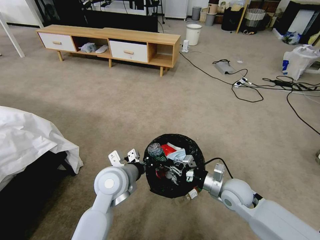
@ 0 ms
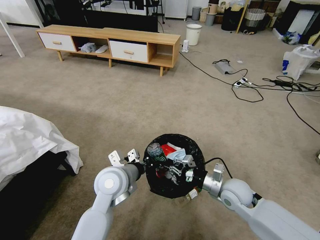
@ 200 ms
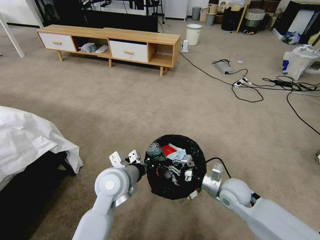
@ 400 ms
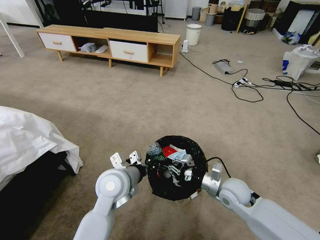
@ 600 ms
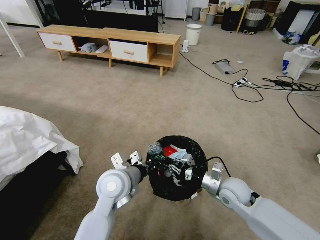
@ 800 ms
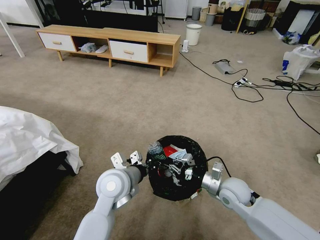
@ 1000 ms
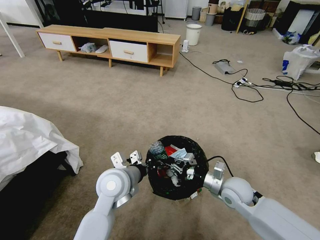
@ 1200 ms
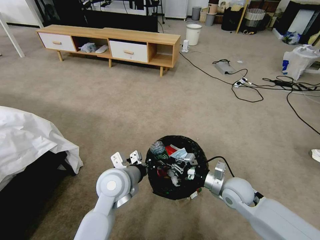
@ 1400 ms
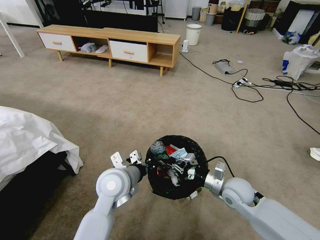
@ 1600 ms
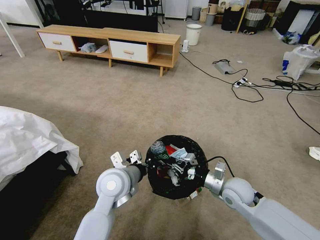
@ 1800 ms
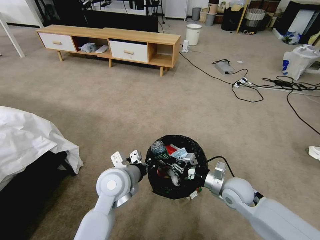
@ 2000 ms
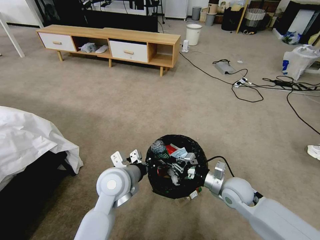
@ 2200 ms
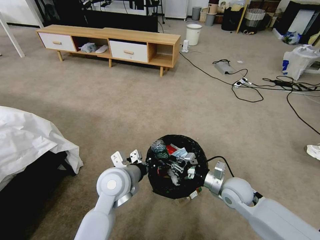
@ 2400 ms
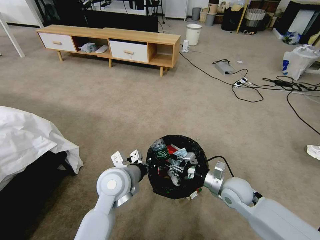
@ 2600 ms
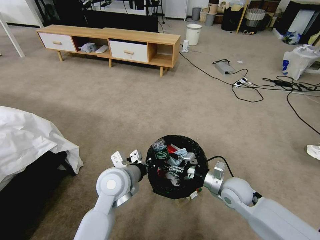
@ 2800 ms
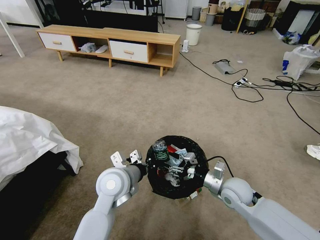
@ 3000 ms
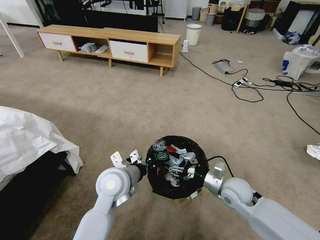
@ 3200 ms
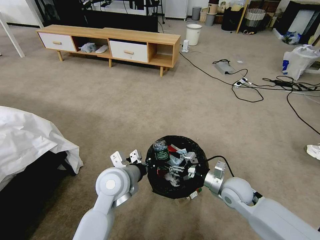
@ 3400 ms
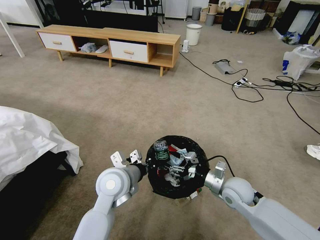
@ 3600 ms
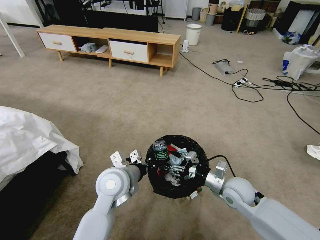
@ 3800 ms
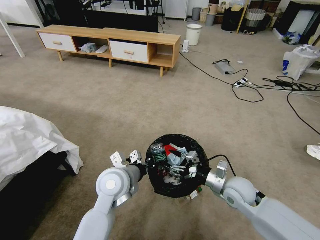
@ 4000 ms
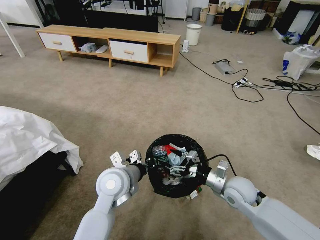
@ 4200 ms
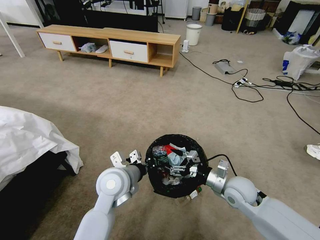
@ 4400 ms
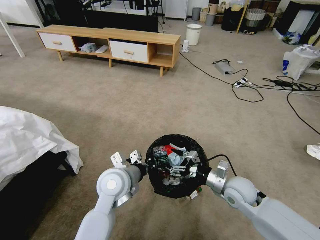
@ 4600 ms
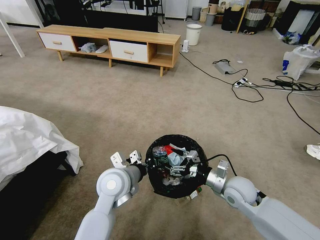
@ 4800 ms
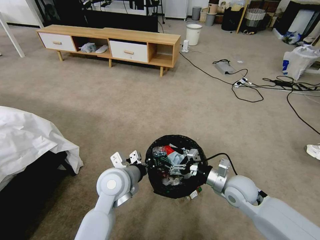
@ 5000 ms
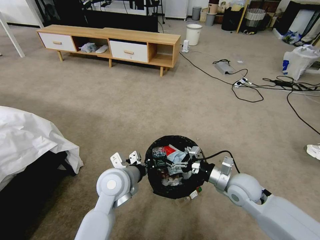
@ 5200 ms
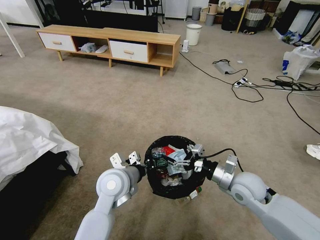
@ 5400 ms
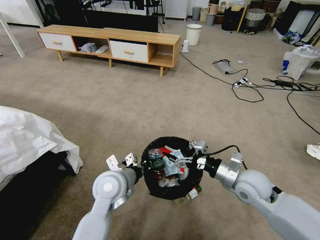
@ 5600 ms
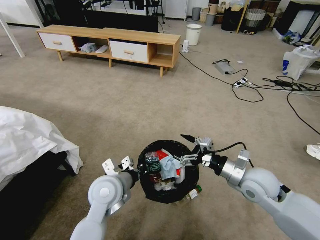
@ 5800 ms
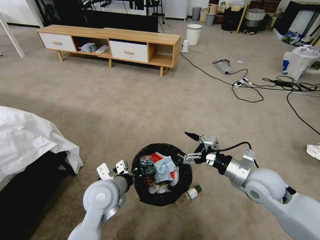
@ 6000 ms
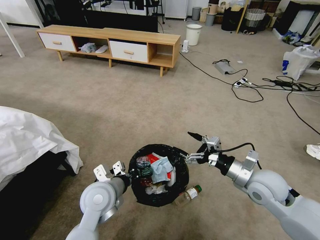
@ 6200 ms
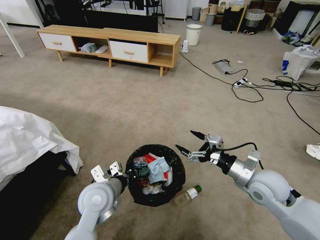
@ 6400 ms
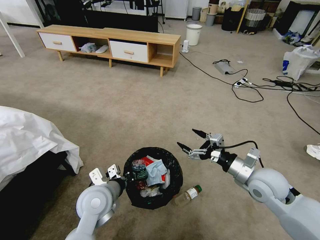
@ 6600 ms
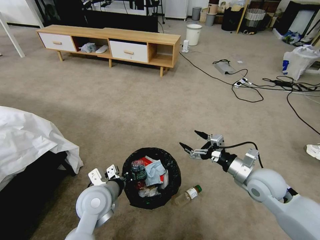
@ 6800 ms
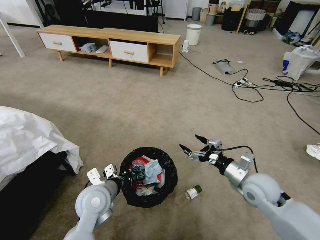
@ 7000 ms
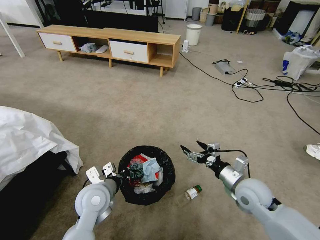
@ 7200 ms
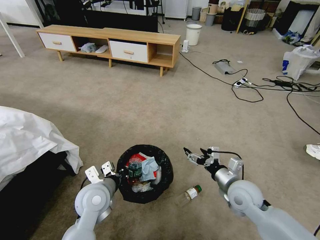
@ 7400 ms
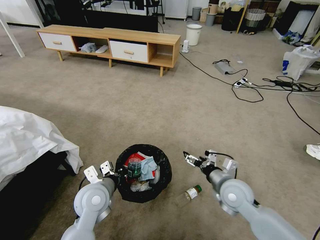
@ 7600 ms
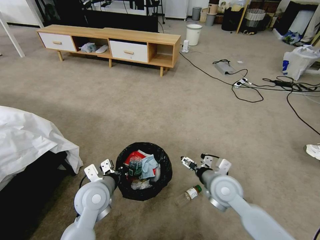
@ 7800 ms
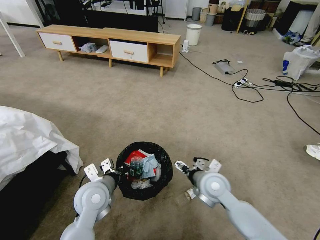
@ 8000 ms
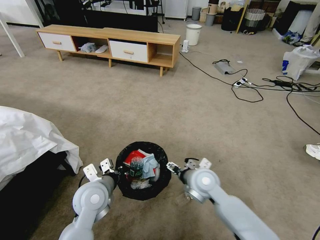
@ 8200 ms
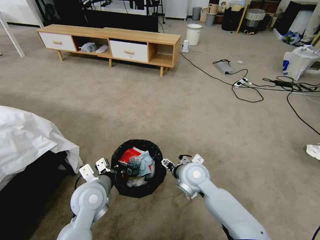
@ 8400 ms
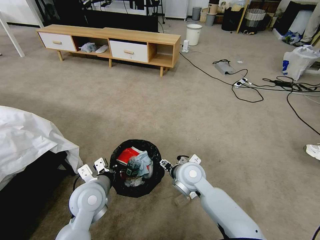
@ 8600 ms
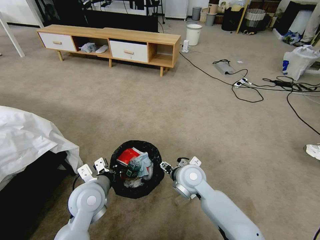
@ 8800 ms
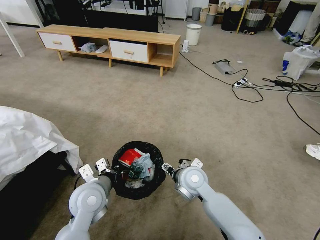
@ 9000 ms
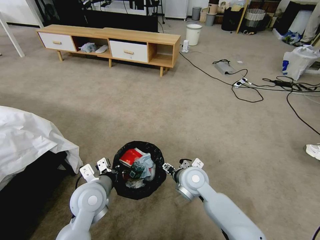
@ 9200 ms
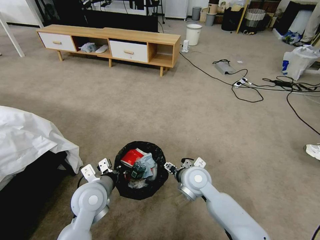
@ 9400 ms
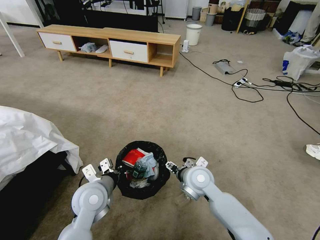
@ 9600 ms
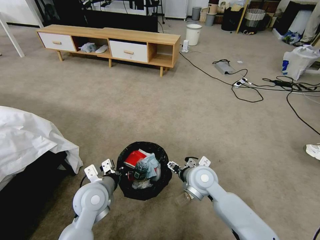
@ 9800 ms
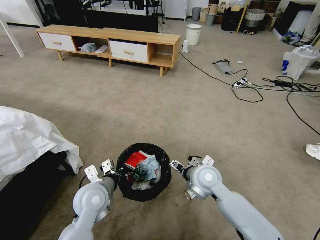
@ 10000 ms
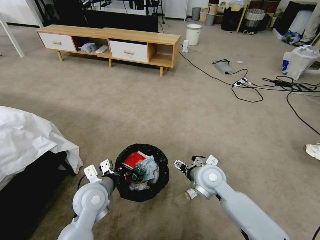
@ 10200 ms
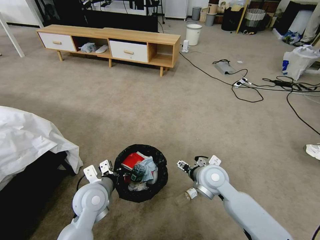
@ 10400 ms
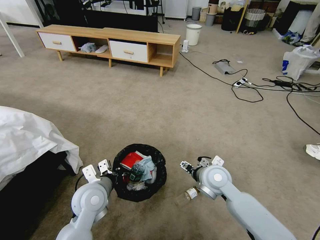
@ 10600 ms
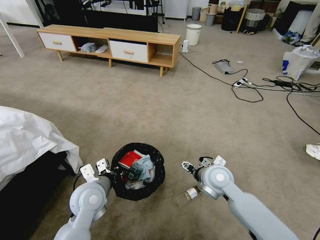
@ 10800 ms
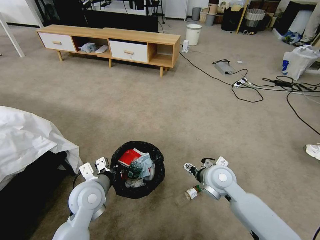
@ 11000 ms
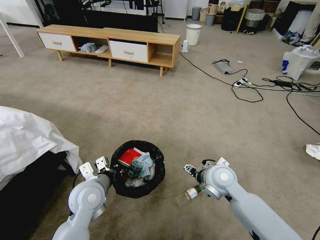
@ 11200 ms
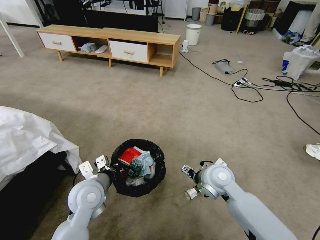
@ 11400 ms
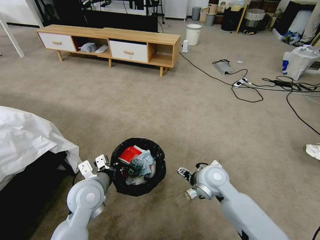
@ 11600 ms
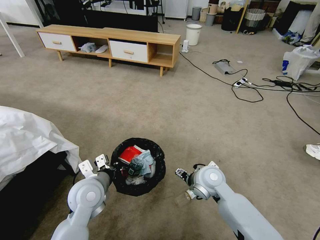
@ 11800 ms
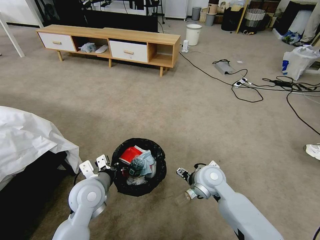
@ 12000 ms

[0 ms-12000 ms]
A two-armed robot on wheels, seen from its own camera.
Task of the whole recording: Pick up the trash bin and place the garbage on the floor into it.
0 ms to 1600 ms: Neither gripper changes place.
1600 ms to 3000 ms: The right gripper opens.
3000 ms to 4400 ms: The grippers move only a little.
4400 ms to 6000 ms: The right gripper moves upward, some 10 cm.
6000 ms to 7600 ms: The right gripper is displaced downward and to the left by some 10 cm.
7600 ms to 9000 ms: The right gripper heads to the left, covering roughly 15 cm.
9000 ms to 10400 ms: The right gripper travels to the right by some 5 cm.
10400 ms to 12000 ms: The grippers move only a little.

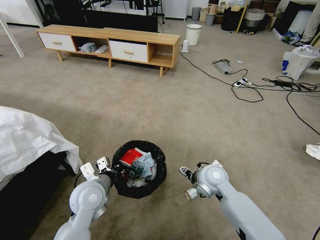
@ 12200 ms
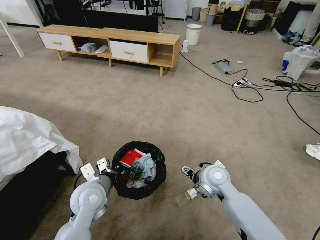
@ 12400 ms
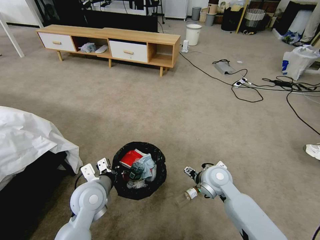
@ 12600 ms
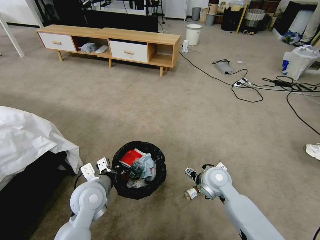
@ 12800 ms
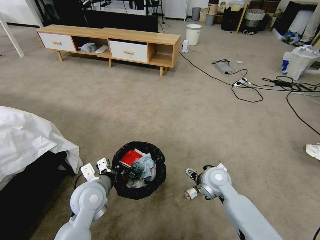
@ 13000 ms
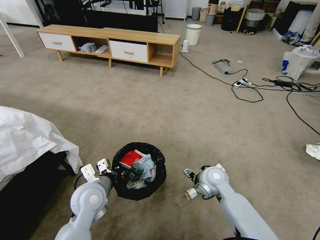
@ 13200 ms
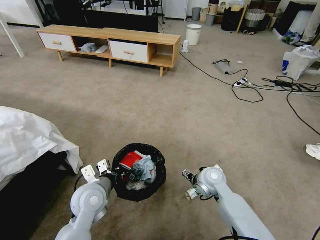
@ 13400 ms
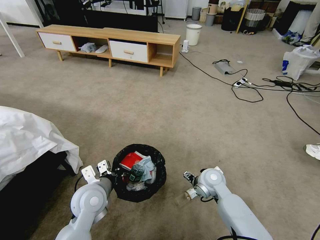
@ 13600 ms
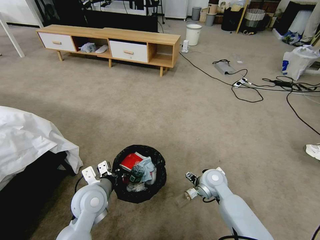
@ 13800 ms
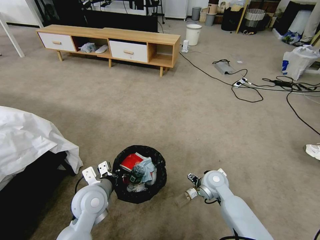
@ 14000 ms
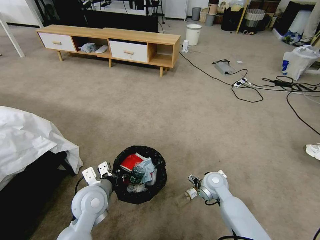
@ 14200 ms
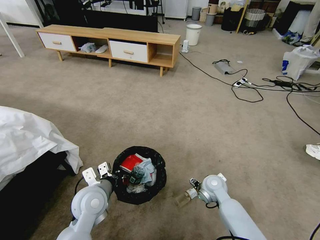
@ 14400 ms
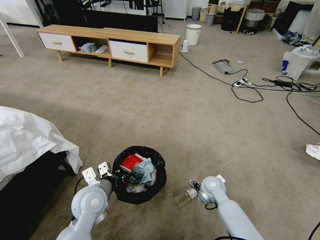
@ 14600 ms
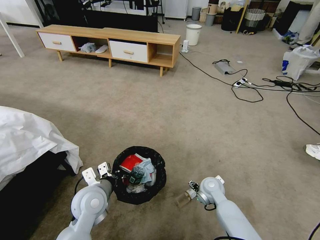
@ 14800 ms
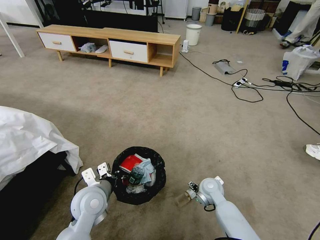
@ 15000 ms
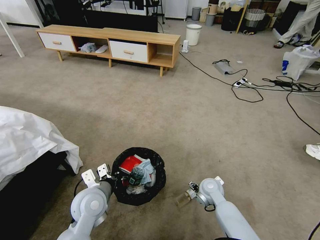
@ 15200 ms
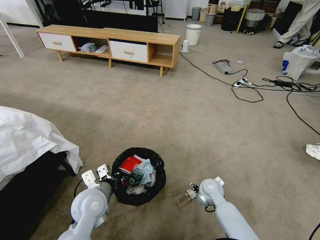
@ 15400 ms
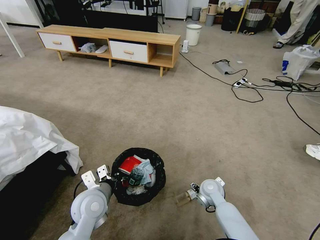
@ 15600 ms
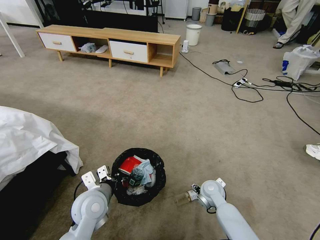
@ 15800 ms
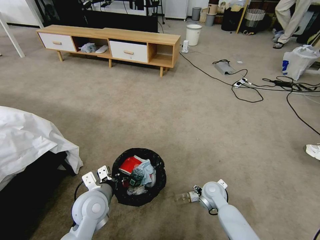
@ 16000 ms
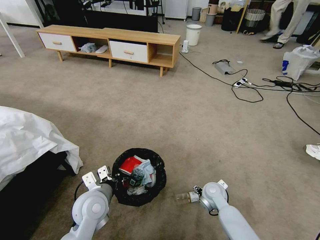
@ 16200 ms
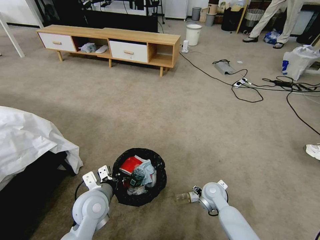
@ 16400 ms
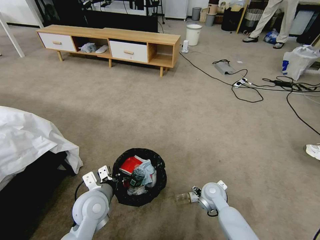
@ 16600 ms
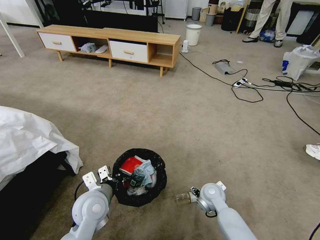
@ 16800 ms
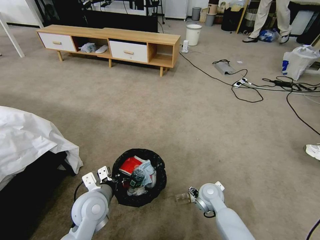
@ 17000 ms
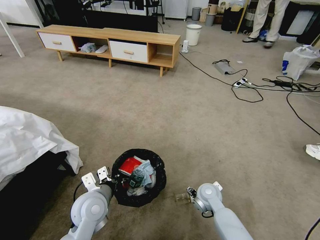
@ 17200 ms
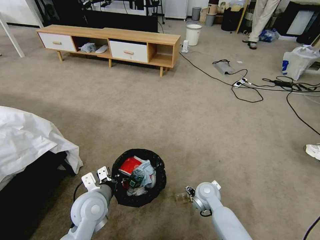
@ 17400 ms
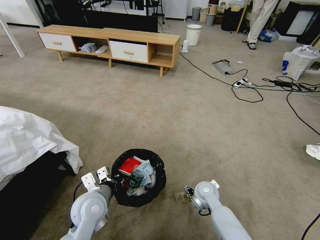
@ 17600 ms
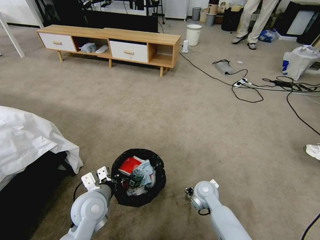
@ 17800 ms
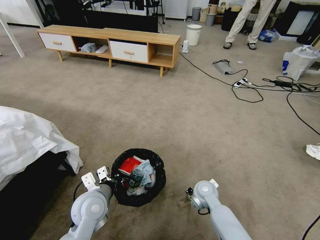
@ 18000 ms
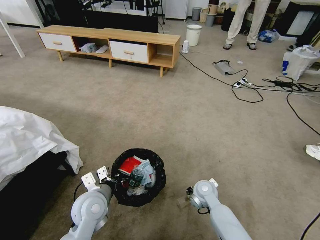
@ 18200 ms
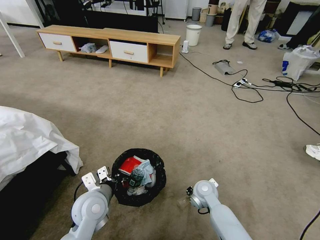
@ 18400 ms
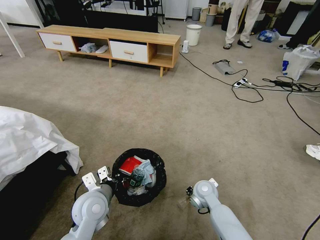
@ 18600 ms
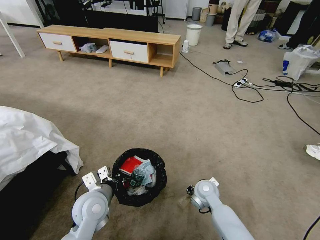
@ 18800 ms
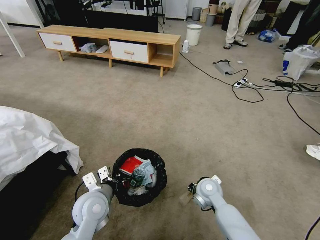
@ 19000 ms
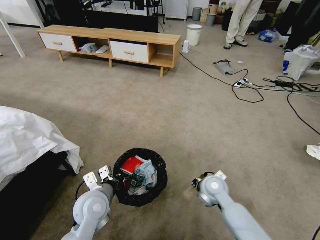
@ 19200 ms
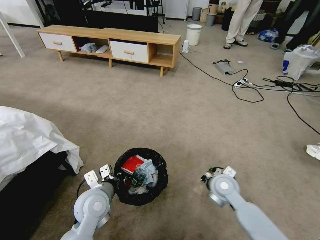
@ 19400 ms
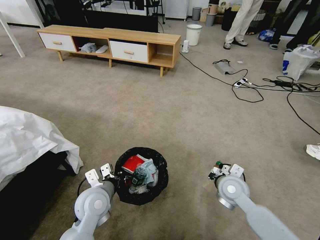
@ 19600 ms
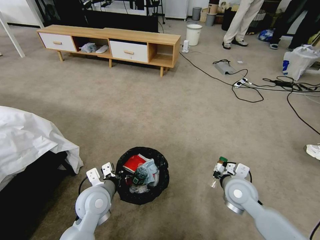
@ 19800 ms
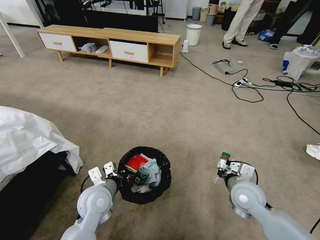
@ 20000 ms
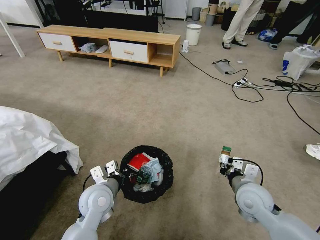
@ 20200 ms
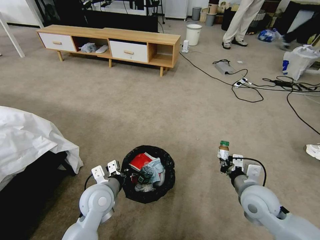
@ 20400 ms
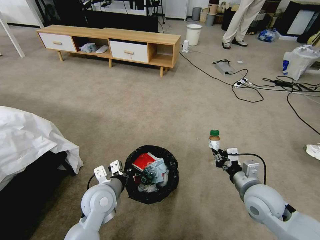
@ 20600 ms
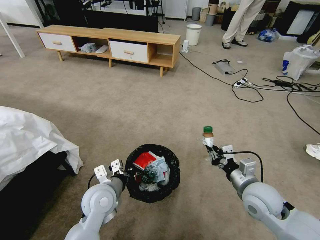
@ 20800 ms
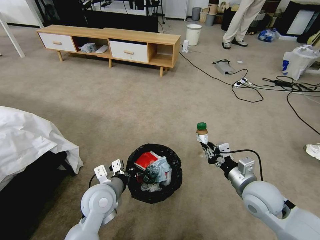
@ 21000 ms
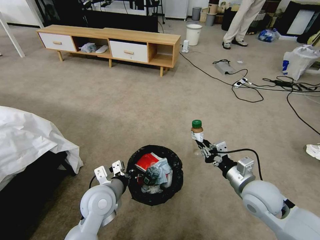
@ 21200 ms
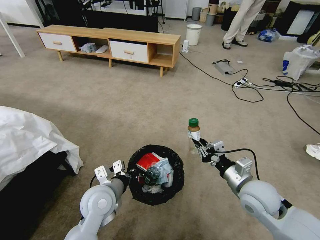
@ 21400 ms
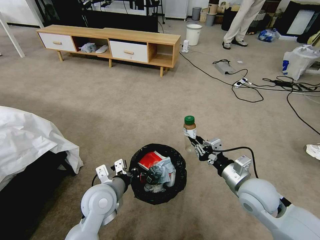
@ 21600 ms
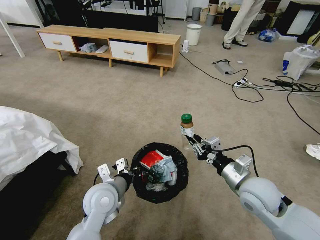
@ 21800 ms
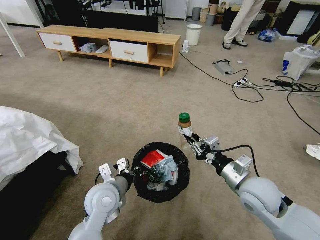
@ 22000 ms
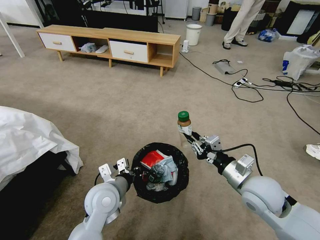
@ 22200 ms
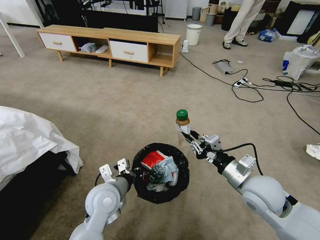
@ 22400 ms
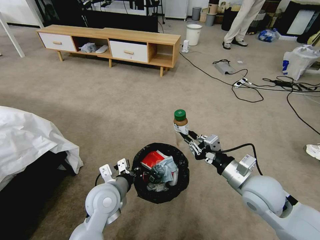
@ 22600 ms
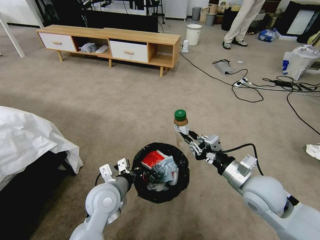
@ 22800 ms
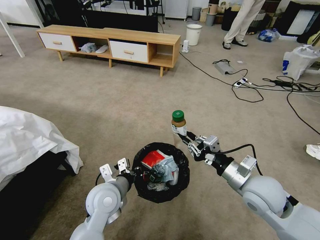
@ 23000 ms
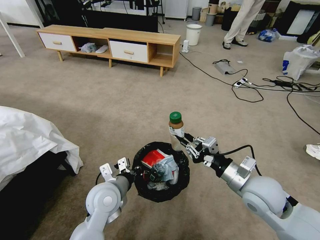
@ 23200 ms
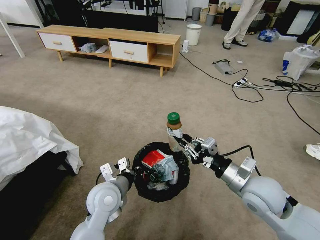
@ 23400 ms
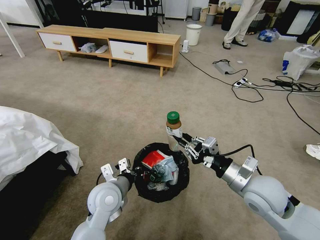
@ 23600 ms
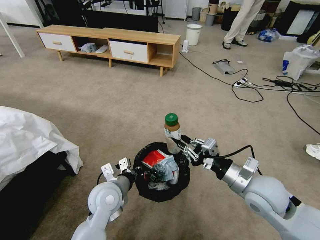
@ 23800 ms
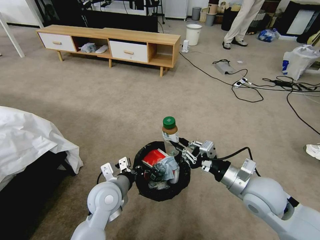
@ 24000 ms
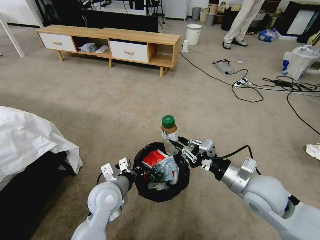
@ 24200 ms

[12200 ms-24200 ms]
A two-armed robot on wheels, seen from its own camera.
Task of the whole recording: Pick up the trash bin and place the garbage on the floor into it.
12200 ms to 13800 ms: The right gripper shifts roughly 5 cm downward.
13800 ms to 15200 ms: The right gripper is displaced downward by roughly 5 cm.
15200 ms to 16600 ms: The grippers move only a little.
16600 ms to 18200 ms: The right gripper closes.
18200 ms to 19800 ms: The right gripper heads upward and to the right, covering approximately 15 cm.
19800 ms to 21200 ms: The right gripper shifts by about 5 cm.
22600 ms to 24200 ms: The grippers make only small movements.
